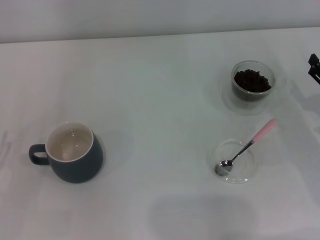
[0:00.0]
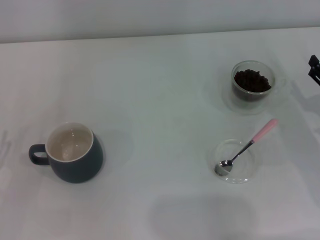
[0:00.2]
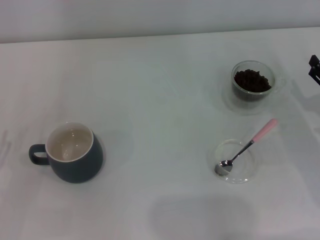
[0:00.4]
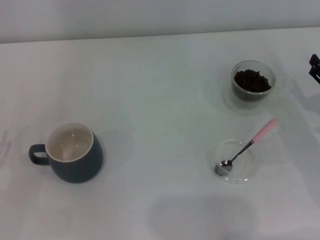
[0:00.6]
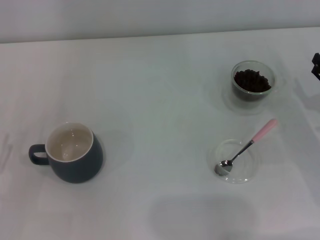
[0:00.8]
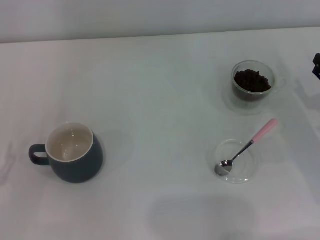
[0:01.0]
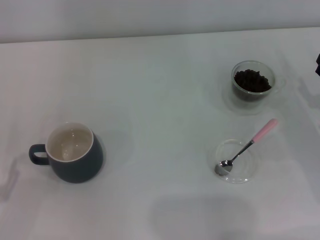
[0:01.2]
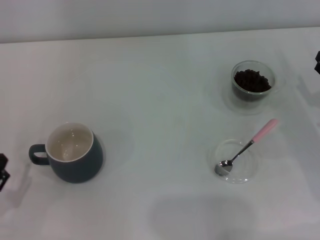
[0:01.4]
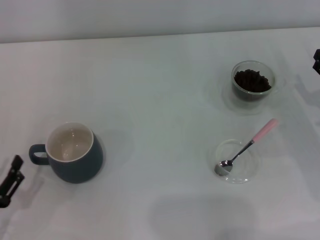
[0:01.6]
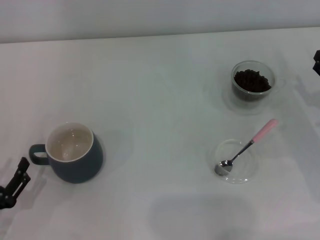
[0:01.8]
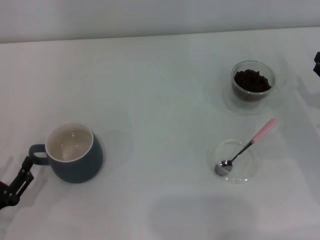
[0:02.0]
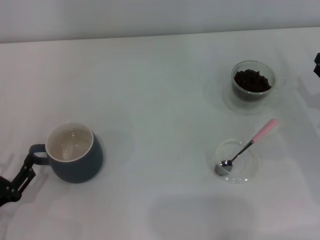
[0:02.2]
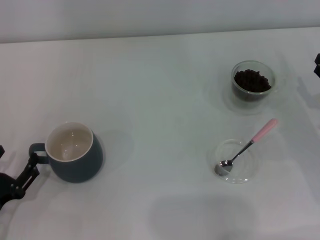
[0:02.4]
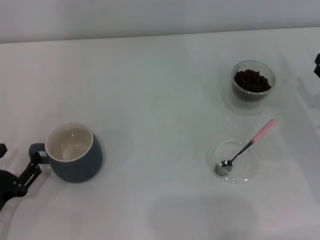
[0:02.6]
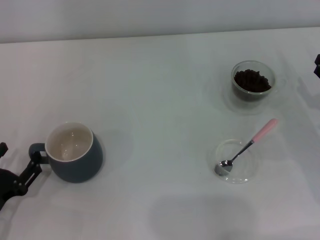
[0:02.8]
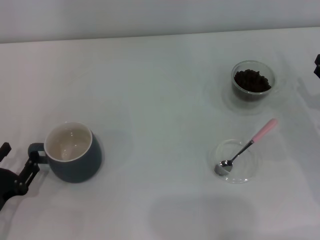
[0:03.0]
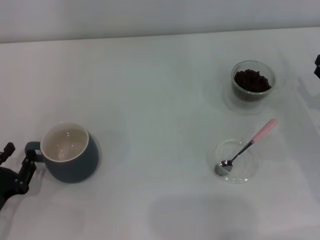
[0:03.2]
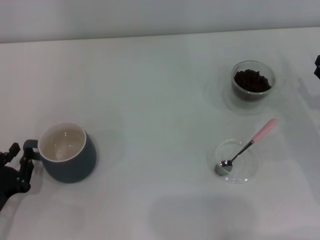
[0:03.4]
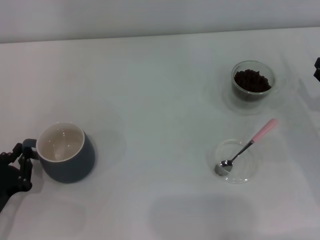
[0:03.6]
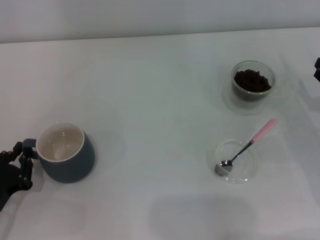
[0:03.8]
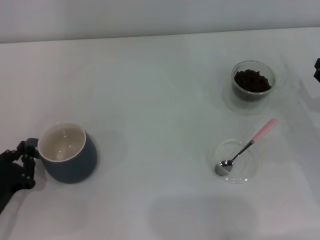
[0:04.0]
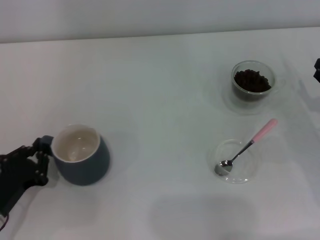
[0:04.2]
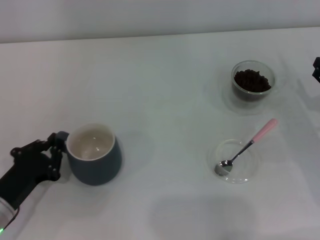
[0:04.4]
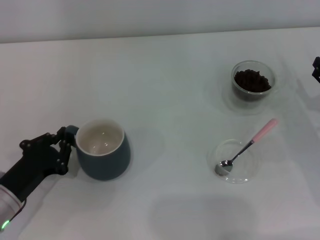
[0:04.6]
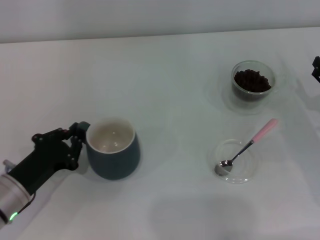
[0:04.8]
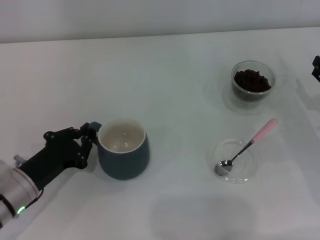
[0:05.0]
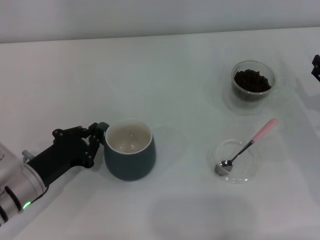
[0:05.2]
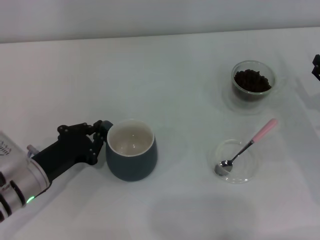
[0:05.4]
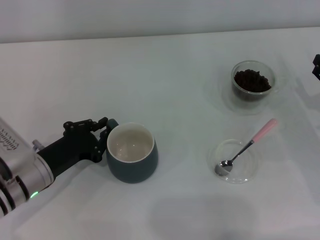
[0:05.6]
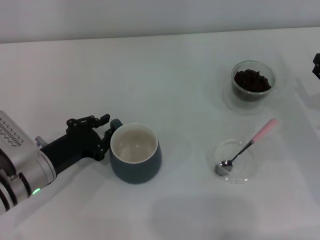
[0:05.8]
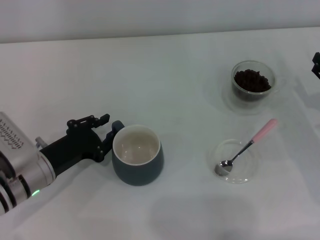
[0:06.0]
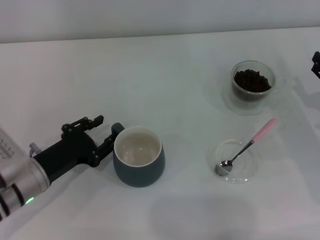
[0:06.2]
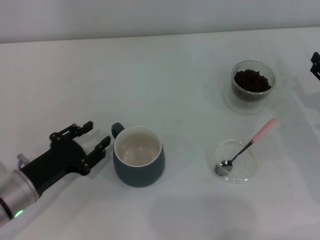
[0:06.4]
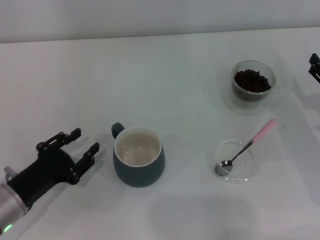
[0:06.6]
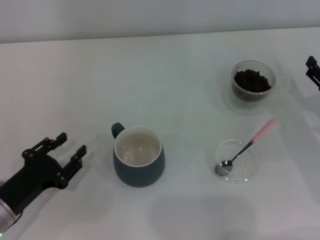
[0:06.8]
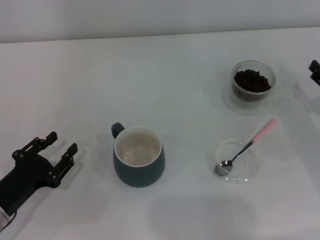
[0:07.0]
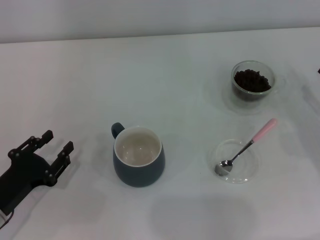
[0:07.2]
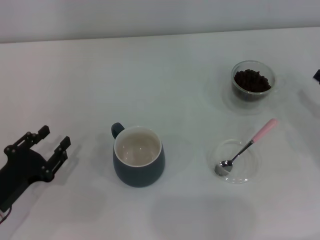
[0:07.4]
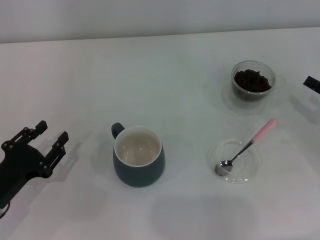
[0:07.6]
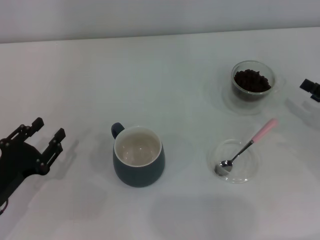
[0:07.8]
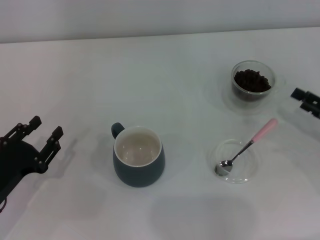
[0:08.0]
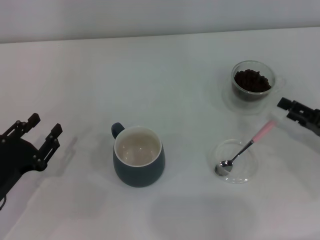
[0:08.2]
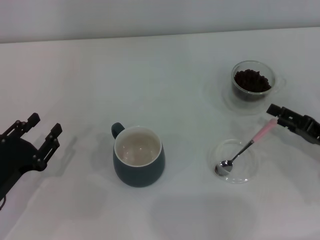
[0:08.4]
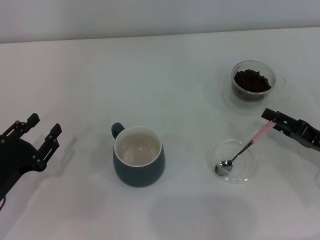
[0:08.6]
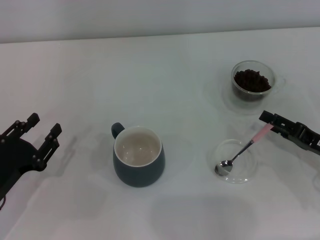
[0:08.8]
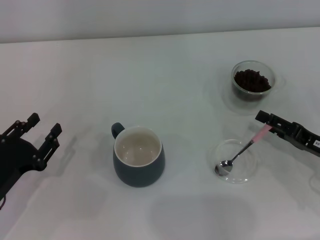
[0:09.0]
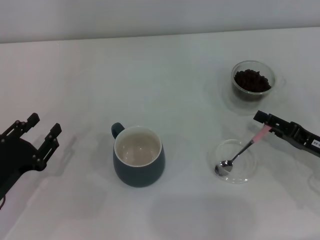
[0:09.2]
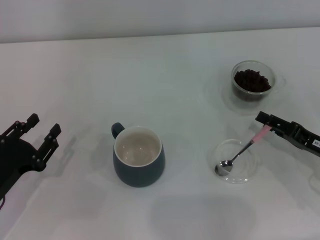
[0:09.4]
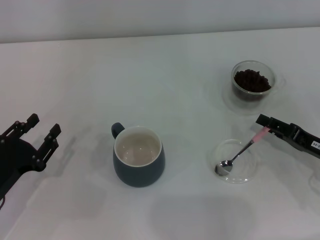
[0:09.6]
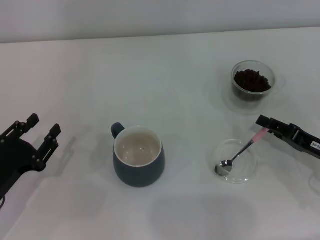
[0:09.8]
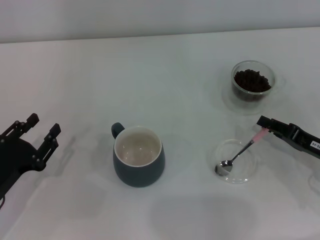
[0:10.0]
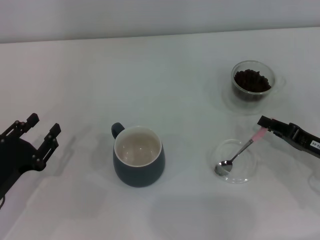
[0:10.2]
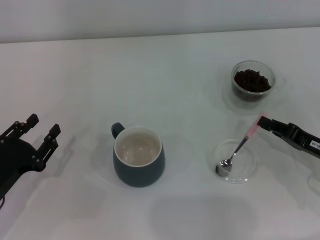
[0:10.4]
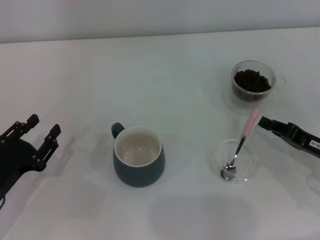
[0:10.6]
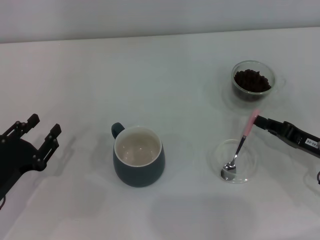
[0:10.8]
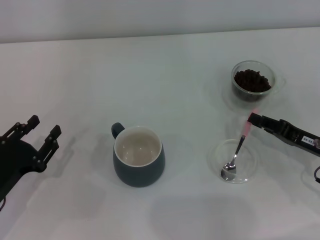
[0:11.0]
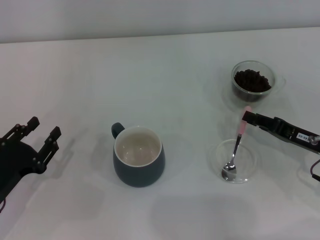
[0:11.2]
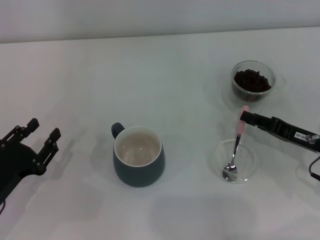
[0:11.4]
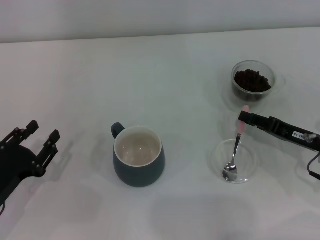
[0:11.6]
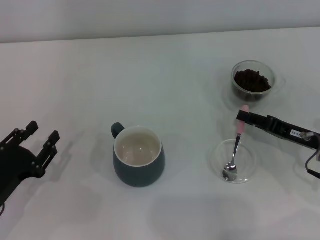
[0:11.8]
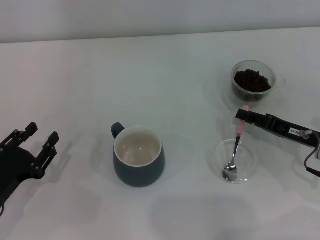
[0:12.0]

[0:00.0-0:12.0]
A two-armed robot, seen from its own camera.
Task of the whole recording: Use a pink spoon to take out the coffee beans from the glass and pour them into the gray cup.
Step, 0:00.0 to 0:06.4: Move the cup to the center of view with the left gripper.
0:00.0 to 0:01.6: The left gripper ends up some 5 cm from where it was.
0:01.6 to 0:03.0: The grippers stay close to where they were, moving slightly.
0:03.0 to 0:04.4: The left gripper closes up.
0:04.4 to 0:06.0: The left gripper travels forward and to the right by roughly 10 cm.
0:06.0 to 0:07.6: The left gripper moves to the left and backward, some 10 cm, and opens its fingers.
0:07.6 to 0:09.0: The right gripper shifts about 5 cm to the left.
0:09.0 to 0:10.4: The right gripper closes up.
0:10.4 to 0:12.0: The grippers make only small movements.

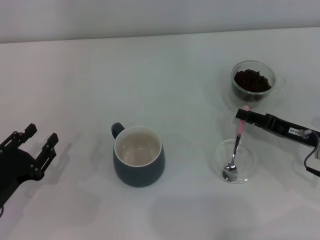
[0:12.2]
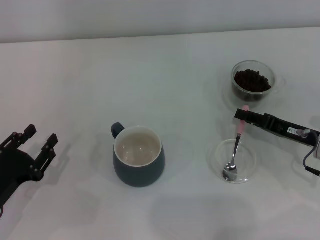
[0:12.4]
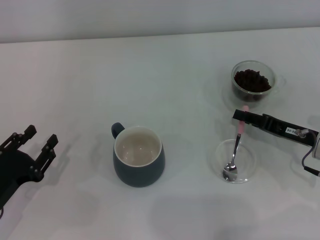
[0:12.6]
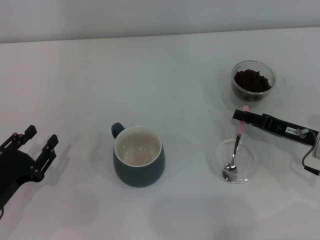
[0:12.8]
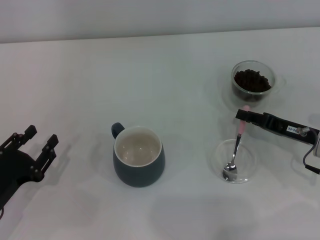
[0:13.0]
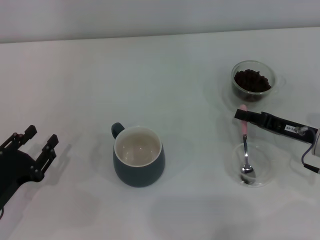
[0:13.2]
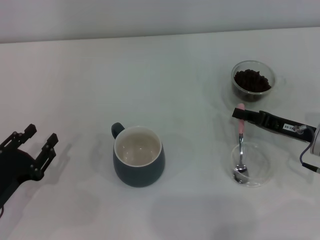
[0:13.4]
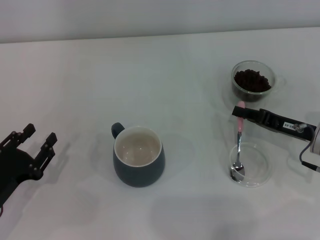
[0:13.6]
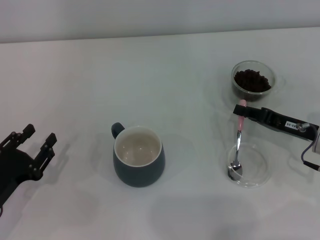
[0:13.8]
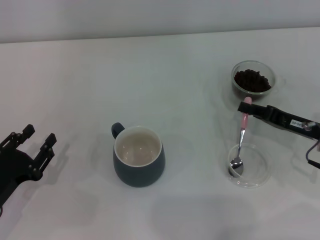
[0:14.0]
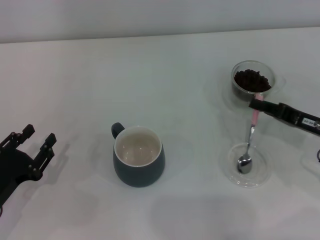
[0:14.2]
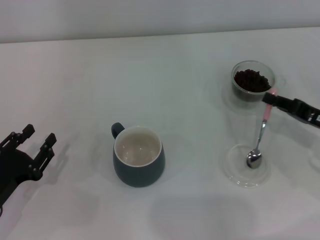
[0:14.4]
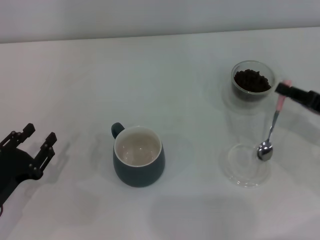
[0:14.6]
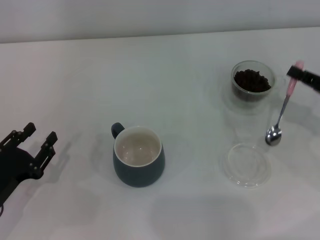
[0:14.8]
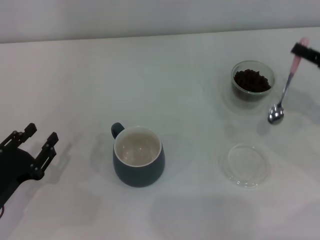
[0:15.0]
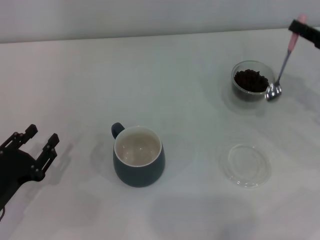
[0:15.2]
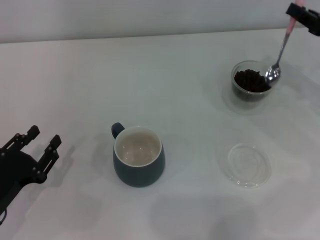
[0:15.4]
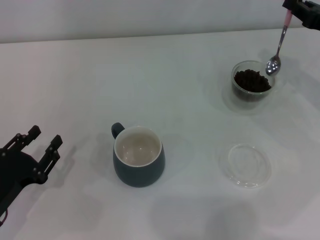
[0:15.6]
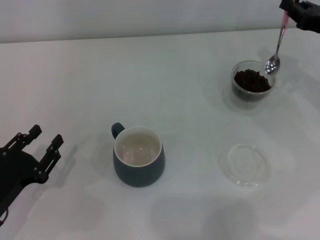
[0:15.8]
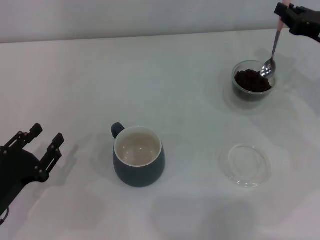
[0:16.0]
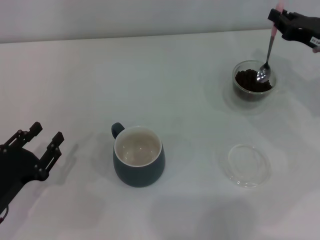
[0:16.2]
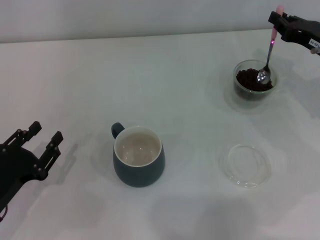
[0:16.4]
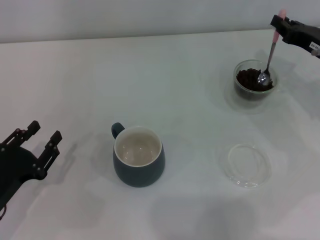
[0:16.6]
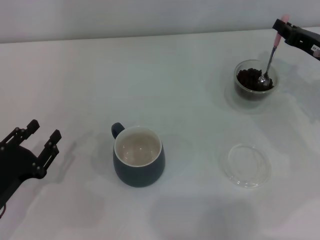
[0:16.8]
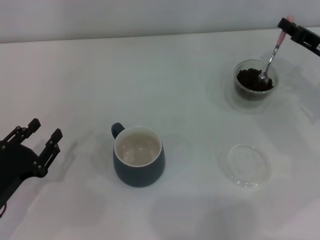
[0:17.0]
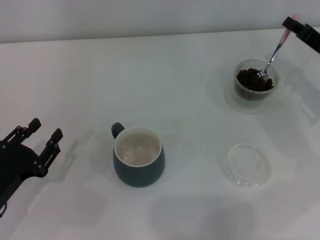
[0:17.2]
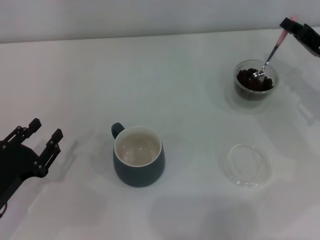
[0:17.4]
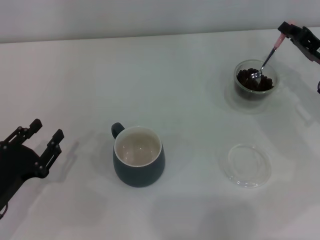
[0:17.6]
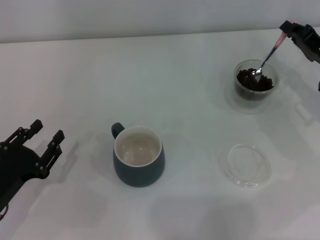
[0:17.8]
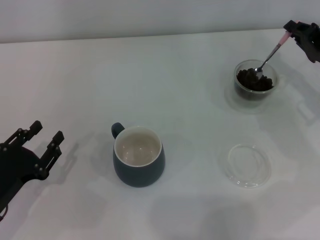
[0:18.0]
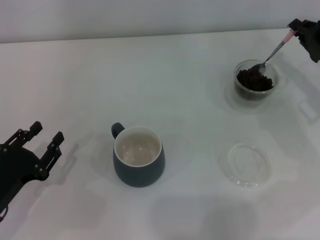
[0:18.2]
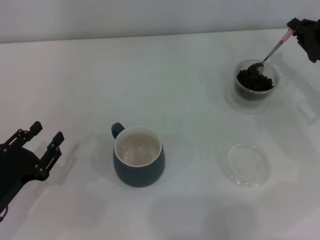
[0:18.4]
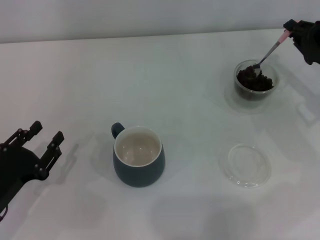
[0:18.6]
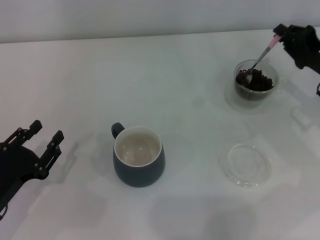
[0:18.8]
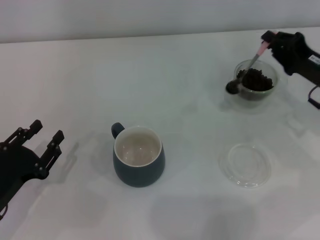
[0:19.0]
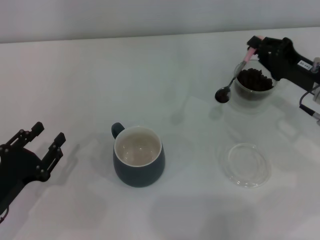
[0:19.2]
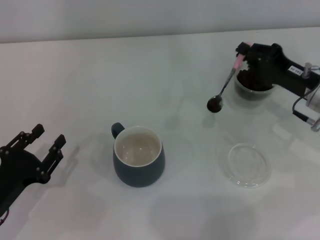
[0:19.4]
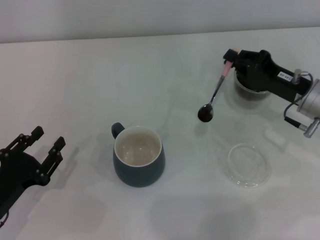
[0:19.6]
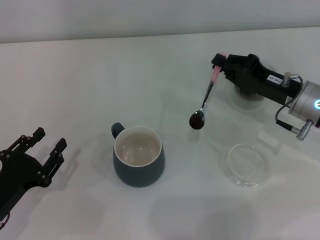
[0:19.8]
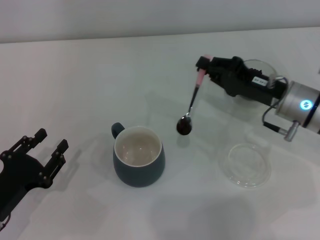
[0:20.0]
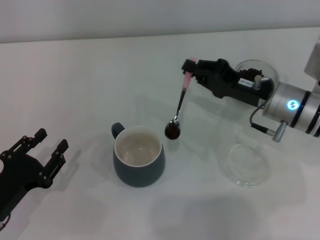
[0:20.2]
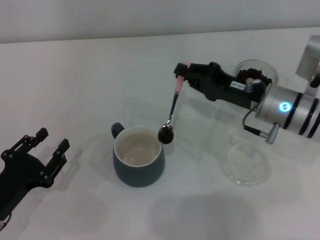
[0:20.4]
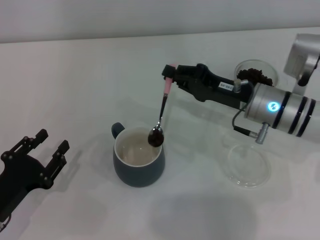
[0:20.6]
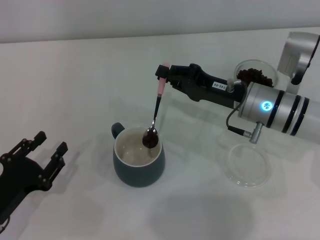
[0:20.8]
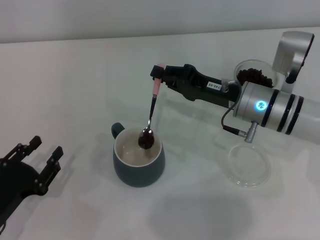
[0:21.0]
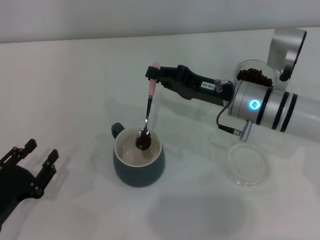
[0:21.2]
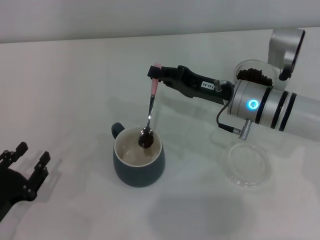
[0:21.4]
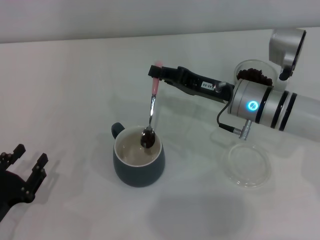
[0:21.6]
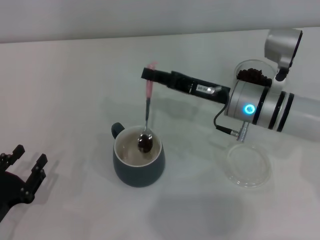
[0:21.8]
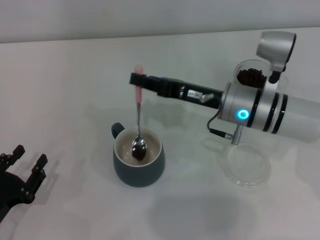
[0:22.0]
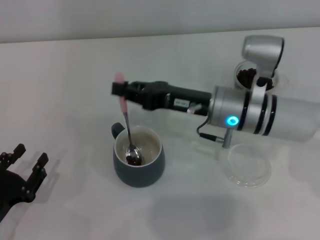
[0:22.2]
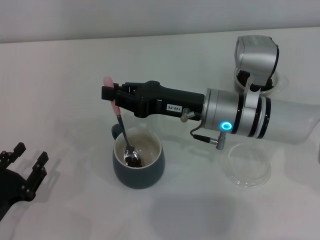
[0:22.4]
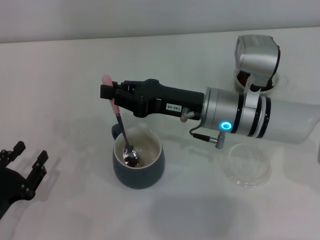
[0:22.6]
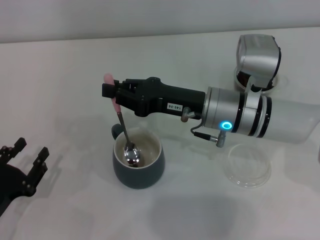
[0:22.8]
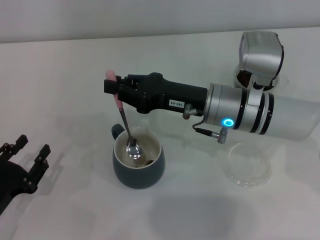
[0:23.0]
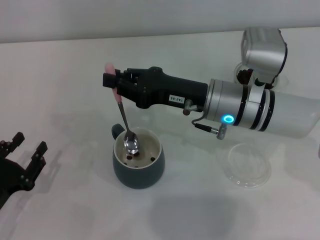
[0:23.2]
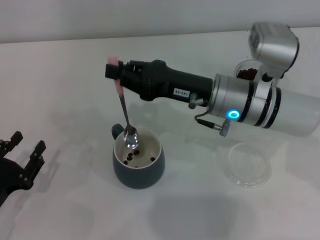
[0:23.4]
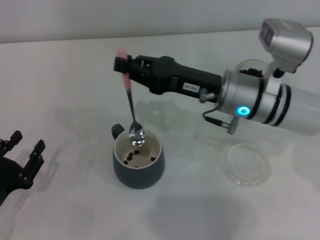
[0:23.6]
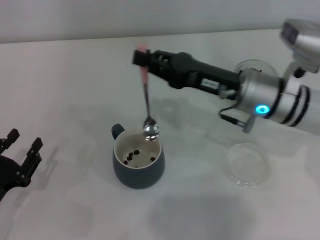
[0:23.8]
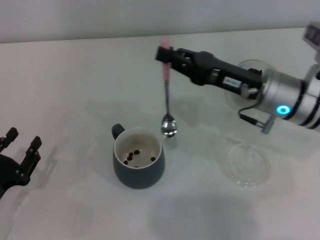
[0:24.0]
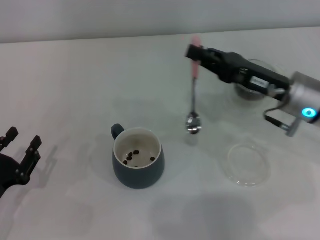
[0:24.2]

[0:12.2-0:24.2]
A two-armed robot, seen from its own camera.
Task of the whole recording: Use a pink spoon to take out the coffee beans from the glass and pour them into the gray cup.
Step, 0:12.2 to 0:14.6: Pick up the spoon with the right gripper.
Step, 0:15.0 to 0:23.6: Scoop a spoonful of beans into the cup with the right gripper.
0:12.2 to 0:13.8: The right gripper closes up.
0:13.8 to 0:15.2: The right gripper heads upward and to the right, covering some 10 cm.
0:15.2 to 0:16.6: The right gripper moves forward, approximately 5 cm.
0:18.2 to 0:19.8: The right gripper heads to the left, covering roughly 10 cm.
0:19.8 to 0:21.2: The right gripper moves to the left, approximately 10 cm.
0:21.2 to 0:22.6: The right gripper travels to the left by about 5 cm.
0:22.6 to 0:24.2: The right gripper moves to the right, roughly 10 cm.
